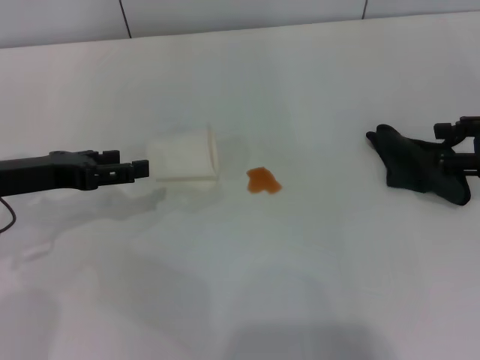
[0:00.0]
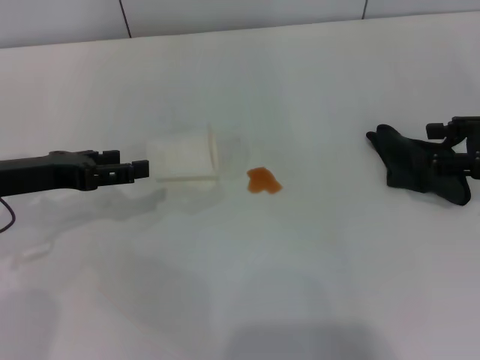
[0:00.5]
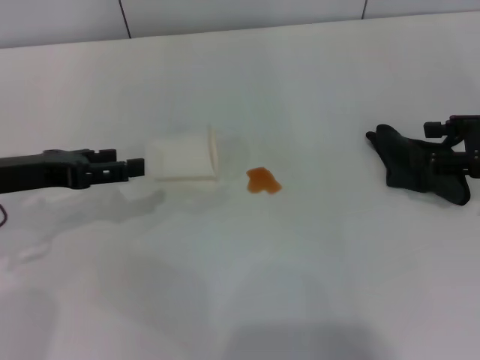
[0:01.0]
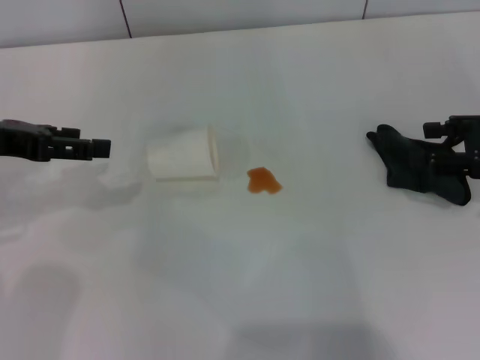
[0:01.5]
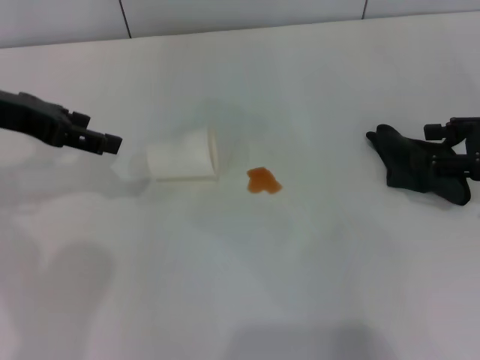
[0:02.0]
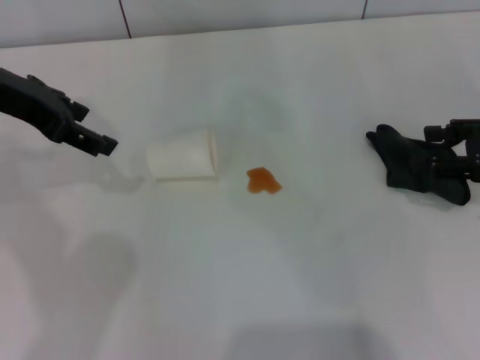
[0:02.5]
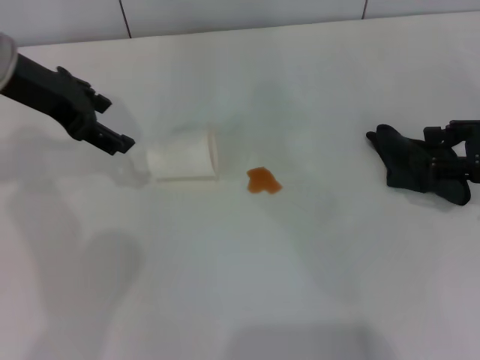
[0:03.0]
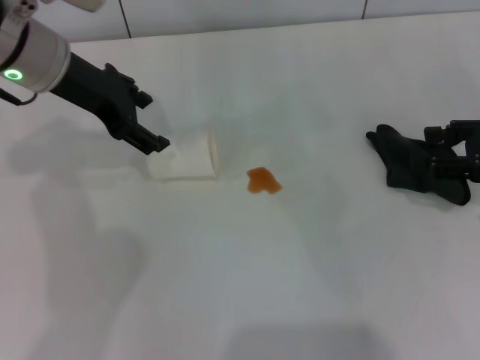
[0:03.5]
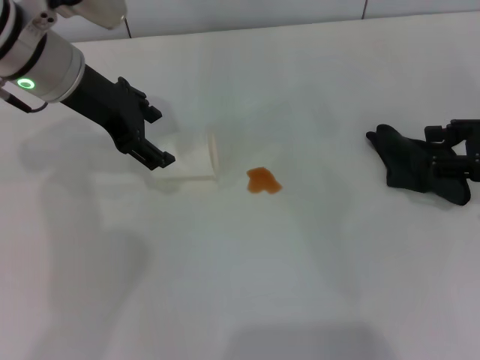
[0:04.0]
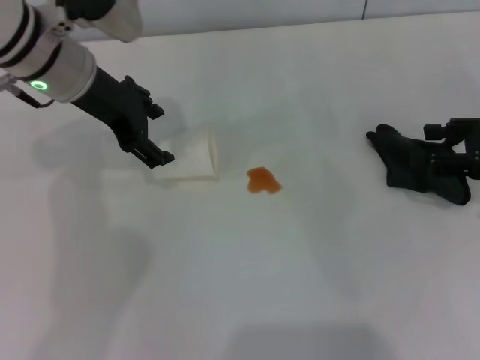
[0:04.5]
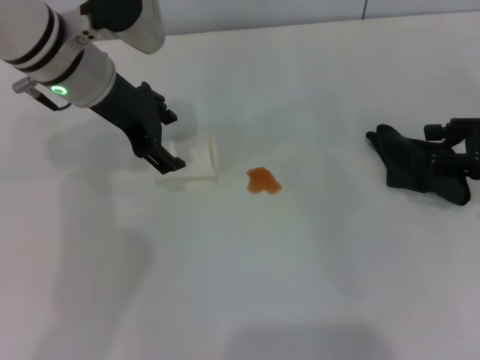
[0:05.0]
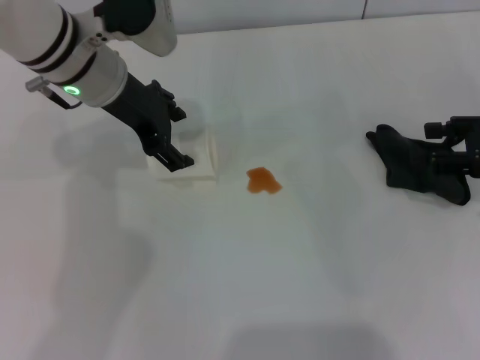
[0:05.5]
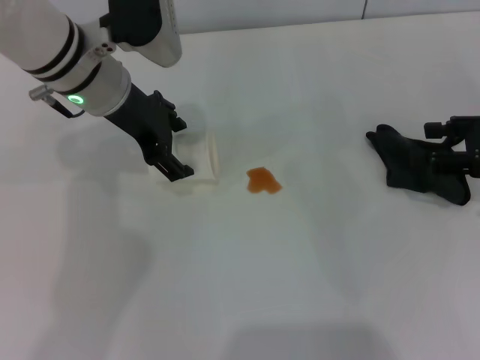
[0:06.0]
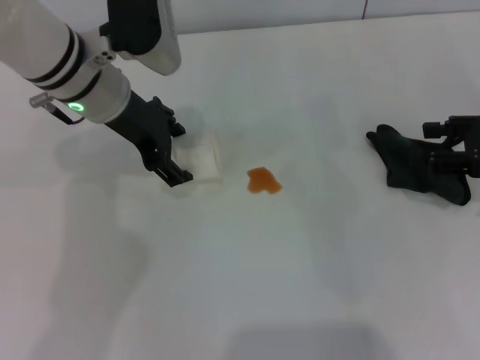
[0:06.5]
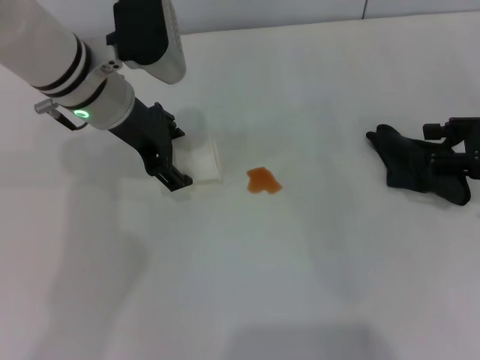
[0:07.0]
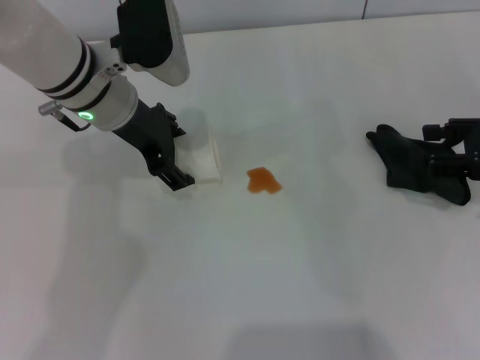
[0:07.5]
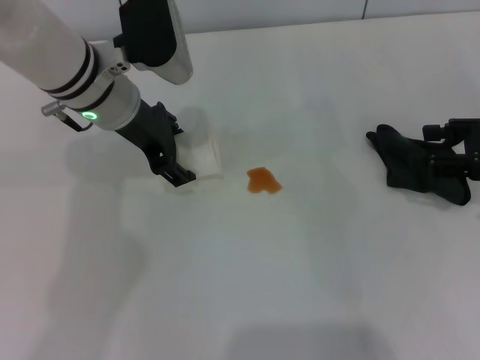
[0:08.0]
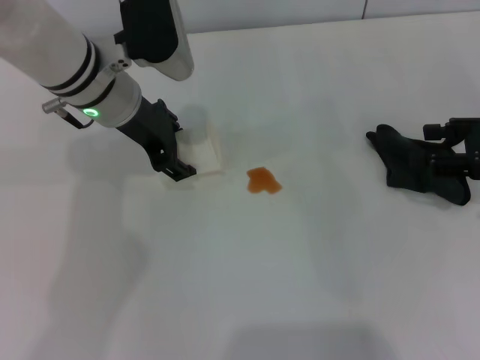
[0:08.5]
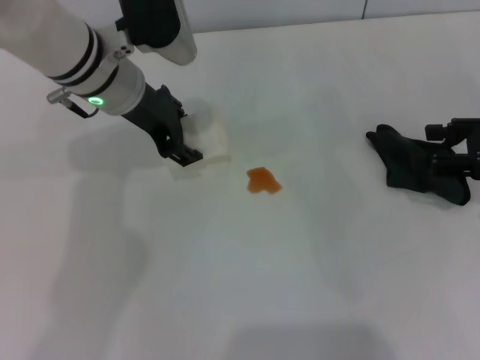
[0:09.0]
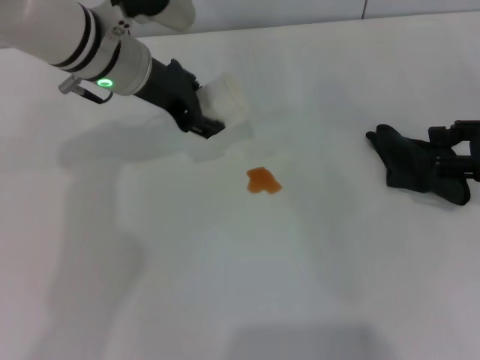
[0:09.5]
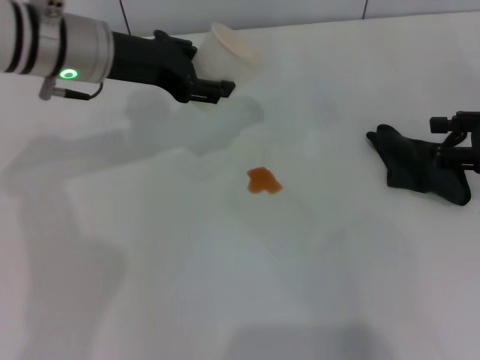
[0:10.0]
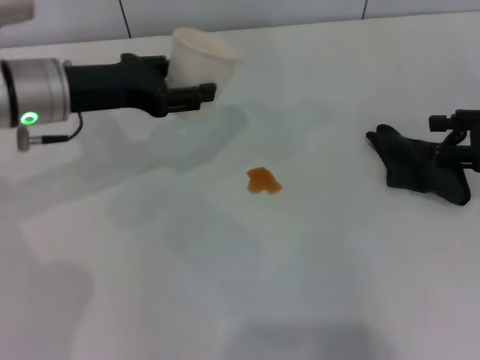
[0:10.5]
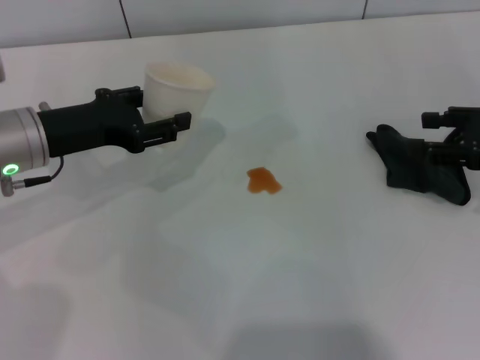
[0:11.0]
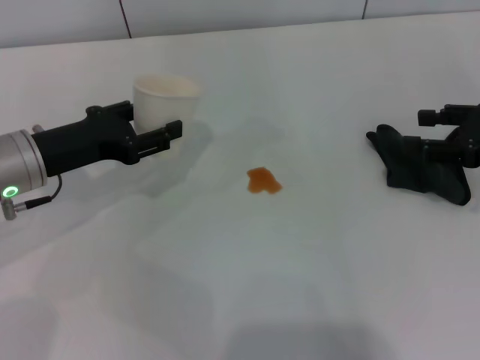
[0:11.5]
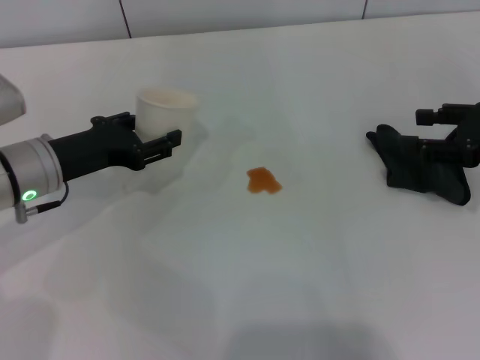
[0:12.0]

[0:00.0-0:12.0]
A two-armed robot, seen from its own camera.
Step, 0:00.0 to 0:08.5: Grasp the paper cup with the left gripper.
0:00.0 to 0:02.0: The left gripper heads upward, covering roughly 10 cm.
0:02.0 to 0:04.0: The left gripper shifts about 10 cm to the right.
0:04.0 to 0:06.0: There are only small adjustments of the grippers.
0:06.0 to 0:08.0: The grippers stay close to where they were, moving slightly.
0:08.0 to 0:10.0: The left gripper closes up.
0:10.0 to 0:12.0: The left gripper moves downward, to the left and backward, roughly 15 cm.

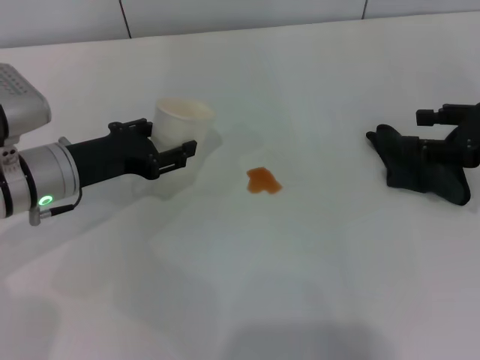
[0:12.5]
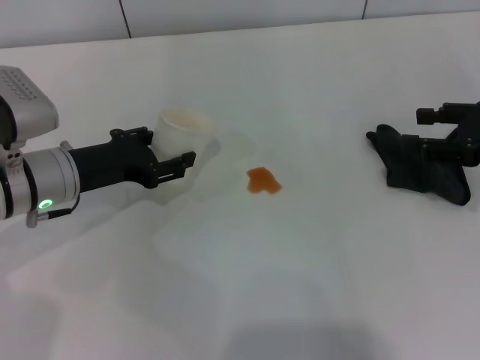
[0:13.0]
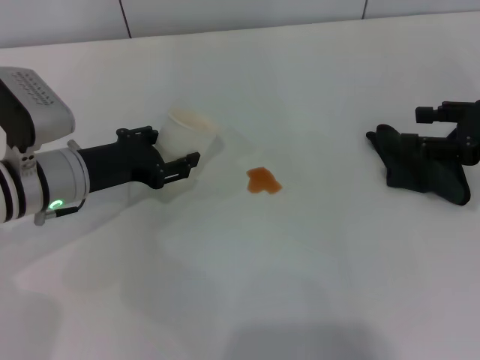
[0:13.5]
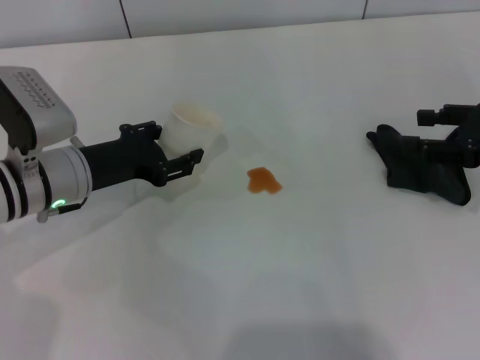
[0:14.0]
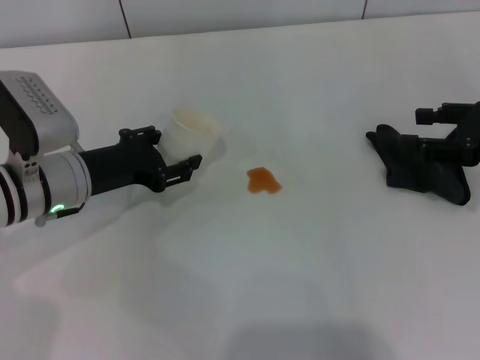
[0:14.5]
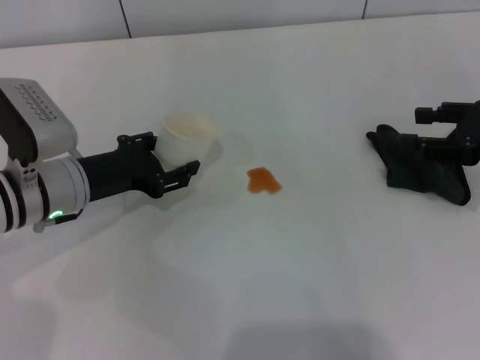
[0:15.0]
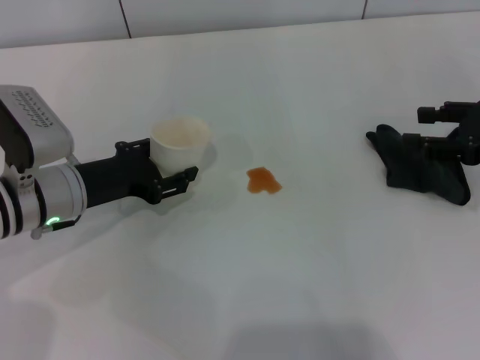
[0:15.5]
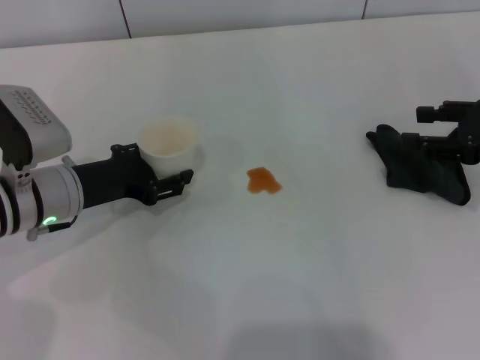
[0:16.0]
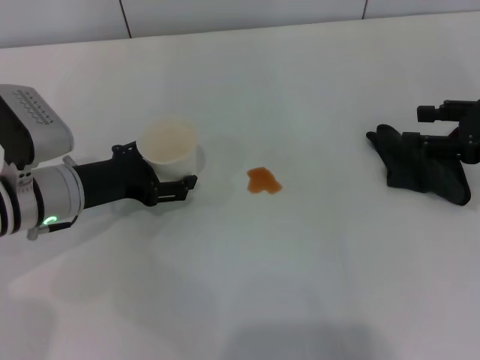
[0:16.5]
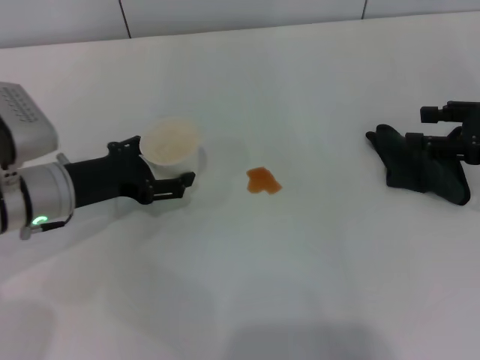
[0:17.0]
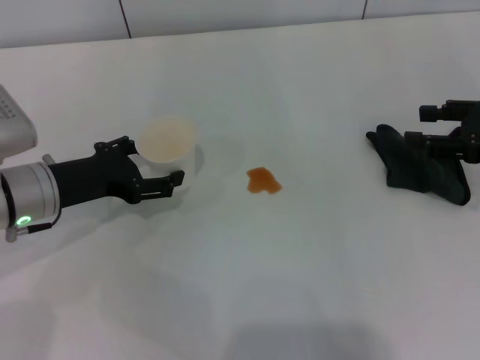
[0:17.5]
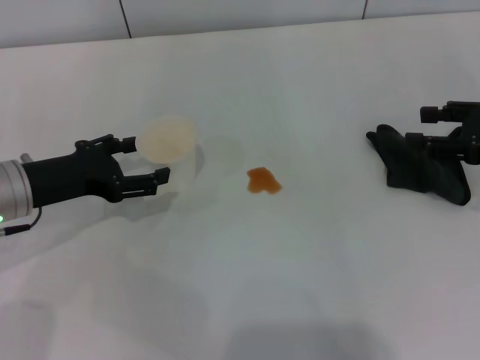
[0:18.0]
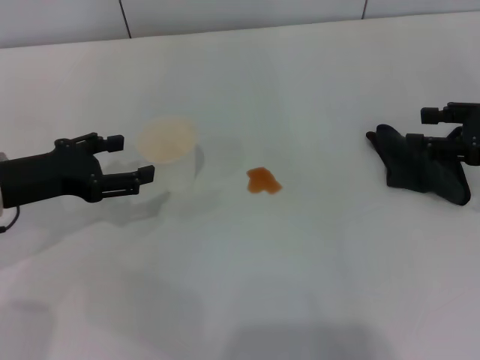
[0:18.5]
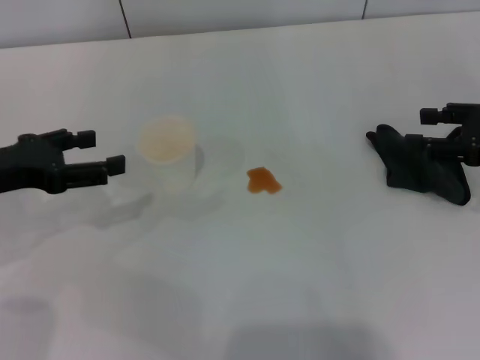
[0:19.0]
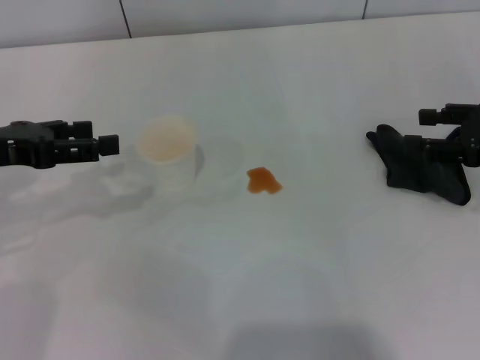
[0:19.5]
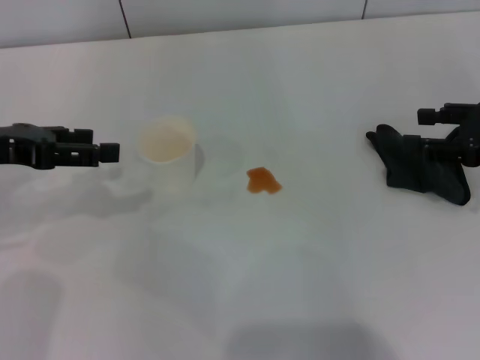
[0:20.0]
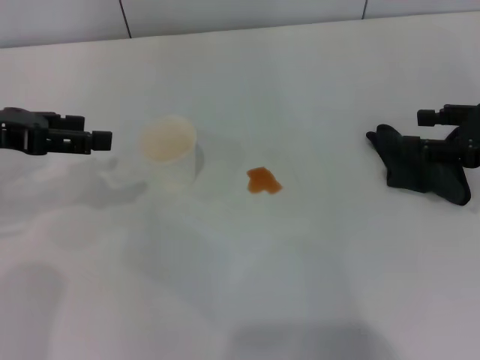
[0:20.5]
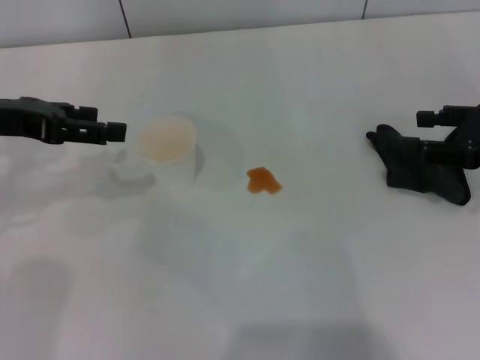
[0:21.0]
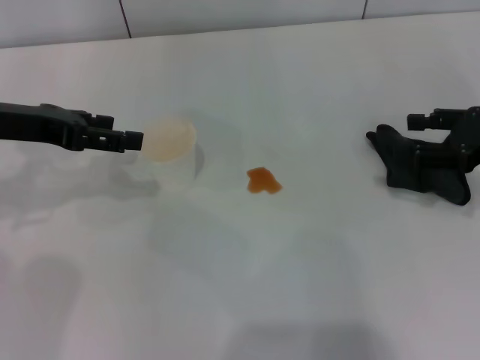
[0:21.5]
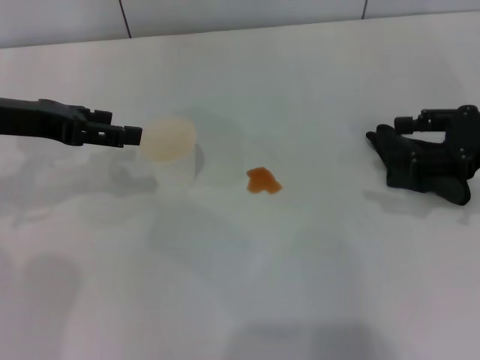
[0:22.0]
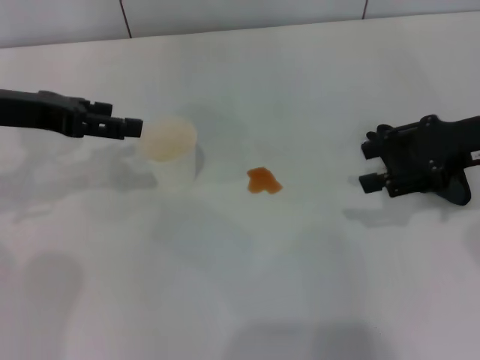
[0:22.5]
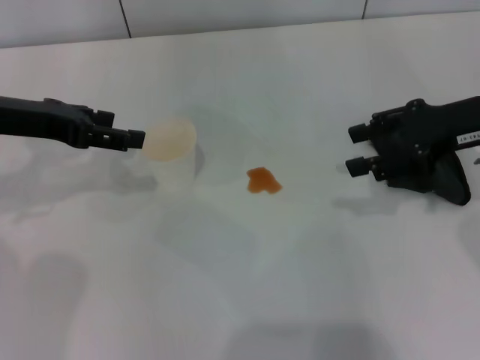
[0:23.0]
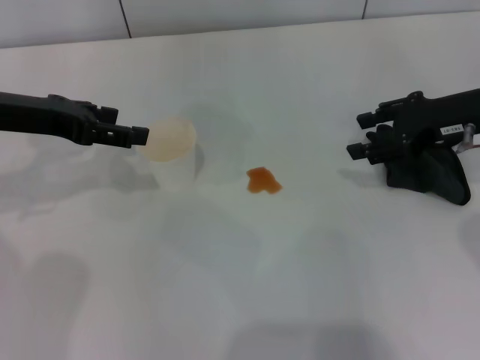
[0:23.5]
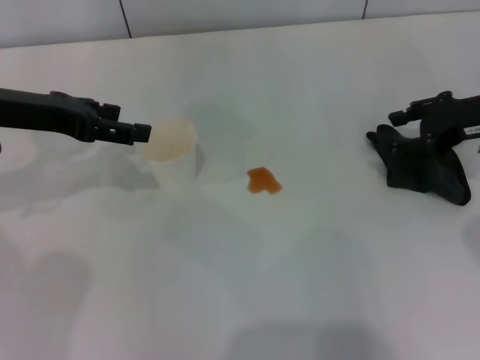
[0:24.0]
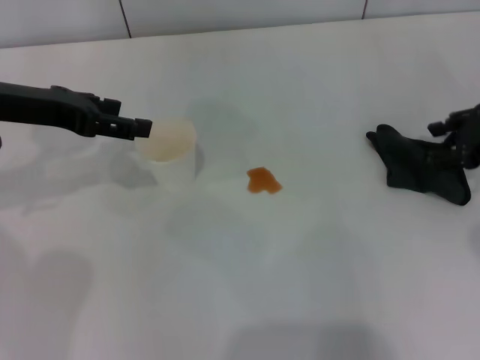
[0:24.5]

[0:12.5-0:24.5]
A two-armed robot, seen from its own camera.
Step, 0:12.5 to 0:18.0: Stand the paper cup upright with the left gripper.
0:12.5 to 0:14.5: The grippers move only a little.
0:14.5 to 0:16.5: The left gripper opens its fingers.
0:16.5 to 0:18.5: The left gripper is displaced to the left by roughly 5 cm.
0:18.5 to 0:20.5: The left gripper heads upward, covering roughly 10 cm.
0:20.5 to 0:22.5: The right gripper heads to the left, covering roughly 5 cm.
0:22.5 to 0:24.5: The right gripper changes place by approximately 5 cm.

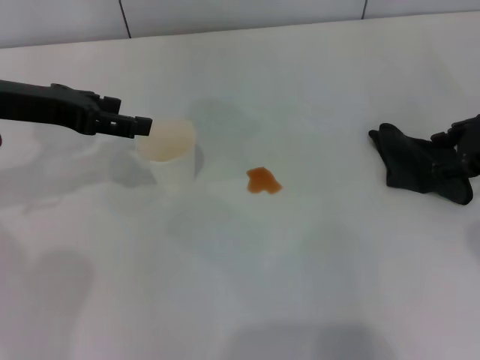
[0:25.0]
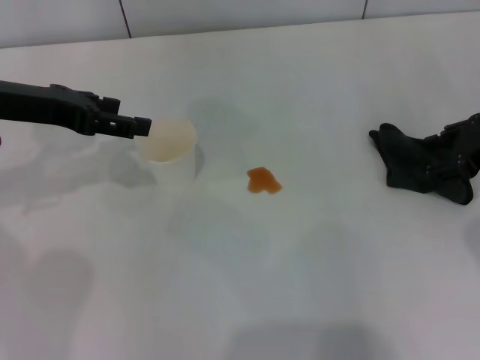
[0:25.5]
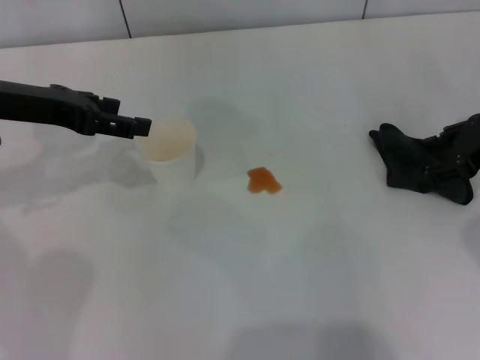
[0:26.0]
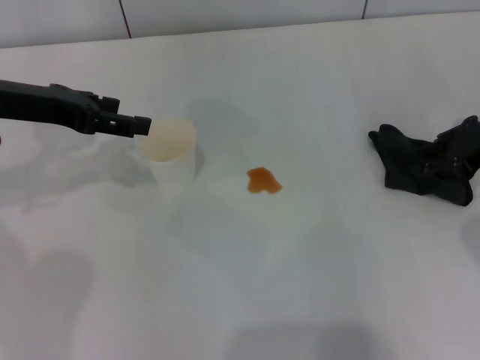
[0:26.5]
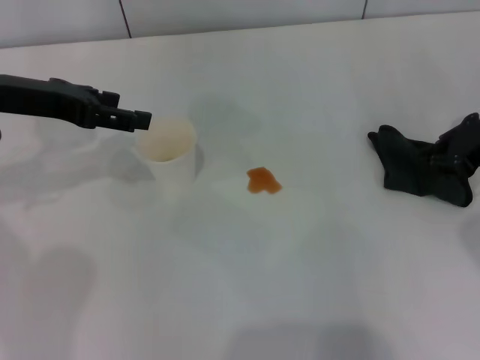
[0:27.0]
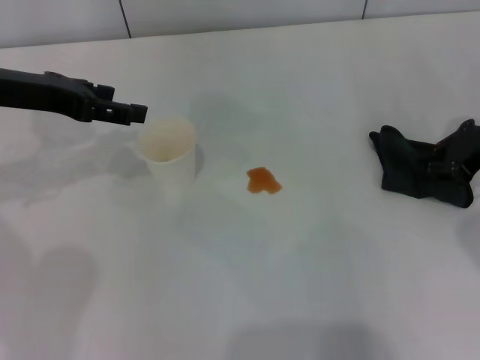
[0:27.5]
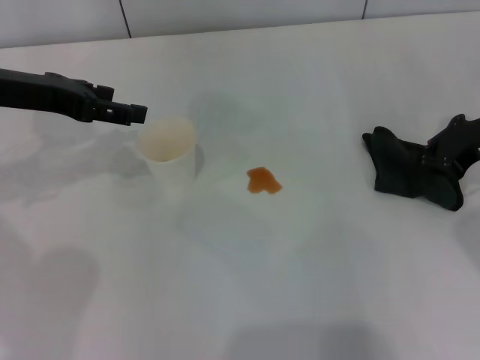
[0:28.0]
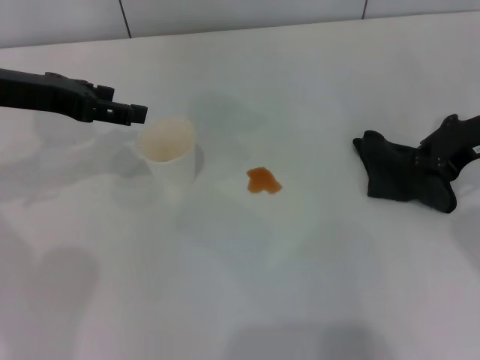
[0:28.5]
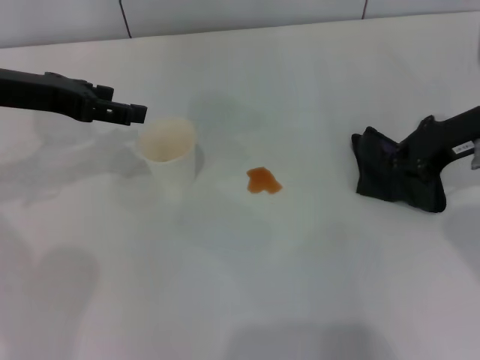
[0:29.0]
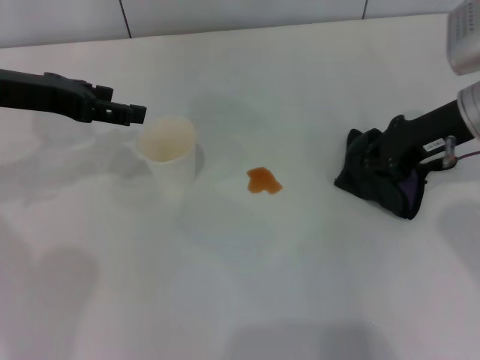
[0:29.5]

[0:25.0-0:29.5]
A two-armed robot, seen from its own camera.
Step, 0:25.0 to 0:27.5: Grasp the rag with the right gripper.
0:25.0 to 0:27.0: The right gripper closes.
0:27.0 to 0:29.5: The right gripper goes about 5 cm to the left, and closes its fingers.
